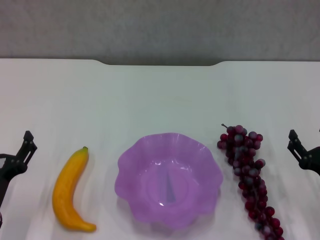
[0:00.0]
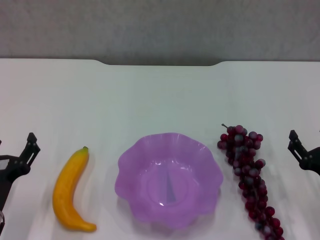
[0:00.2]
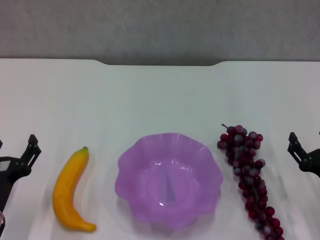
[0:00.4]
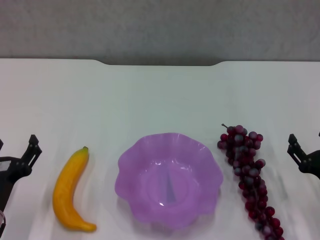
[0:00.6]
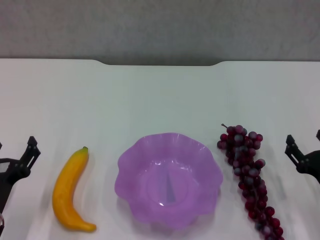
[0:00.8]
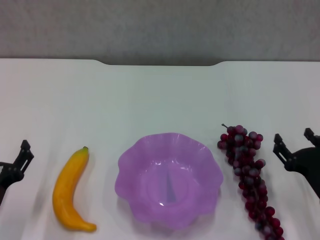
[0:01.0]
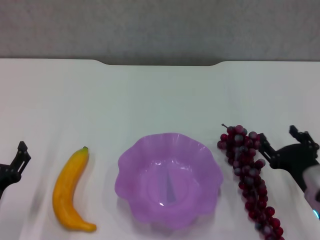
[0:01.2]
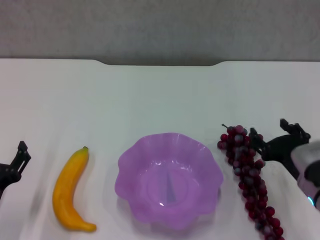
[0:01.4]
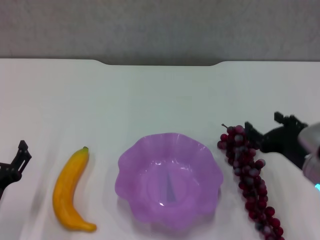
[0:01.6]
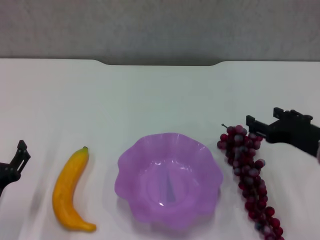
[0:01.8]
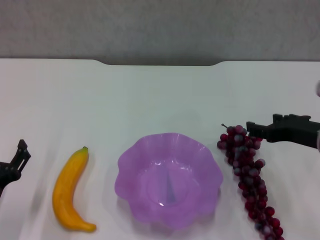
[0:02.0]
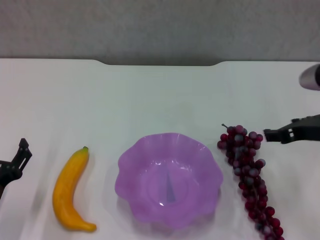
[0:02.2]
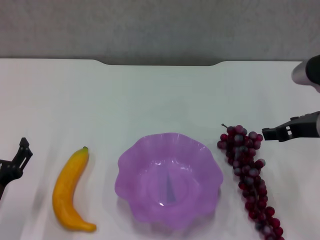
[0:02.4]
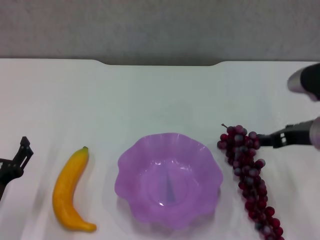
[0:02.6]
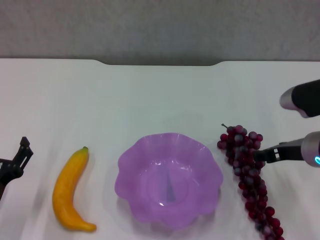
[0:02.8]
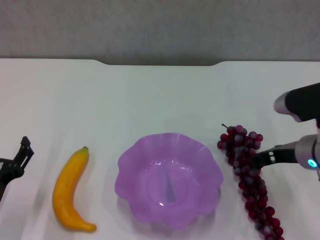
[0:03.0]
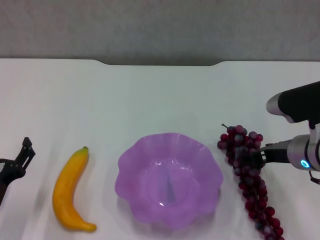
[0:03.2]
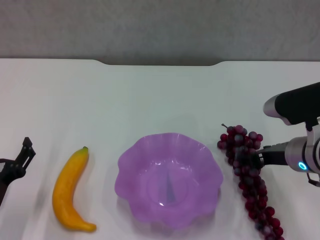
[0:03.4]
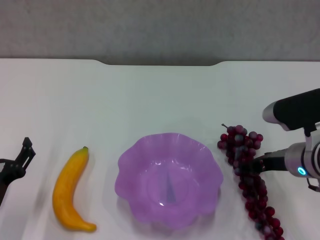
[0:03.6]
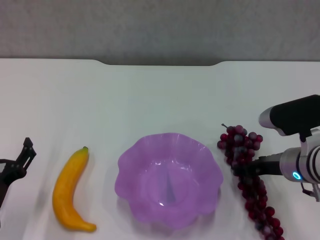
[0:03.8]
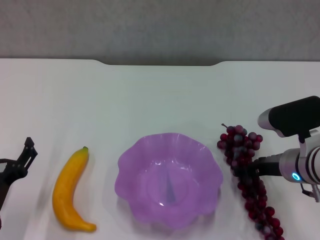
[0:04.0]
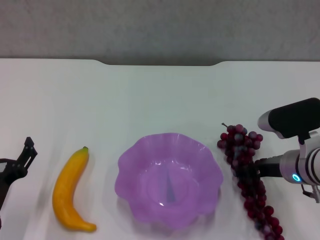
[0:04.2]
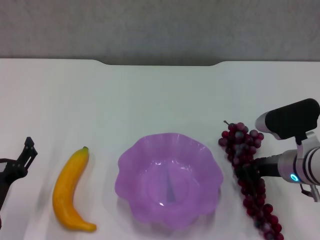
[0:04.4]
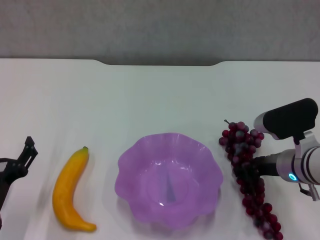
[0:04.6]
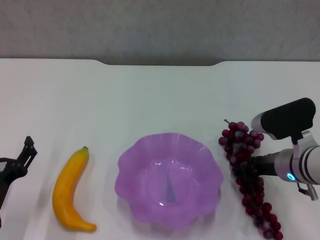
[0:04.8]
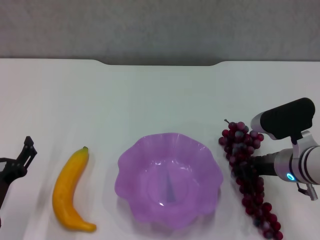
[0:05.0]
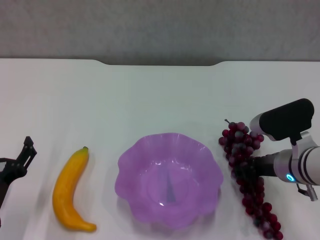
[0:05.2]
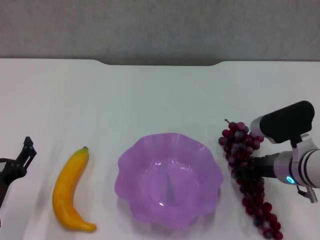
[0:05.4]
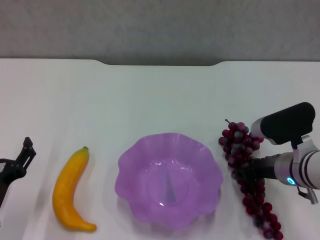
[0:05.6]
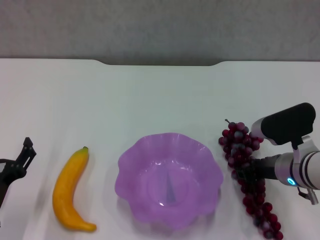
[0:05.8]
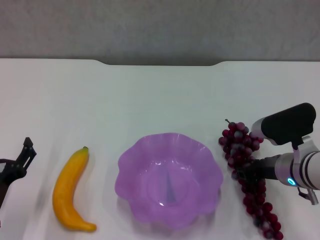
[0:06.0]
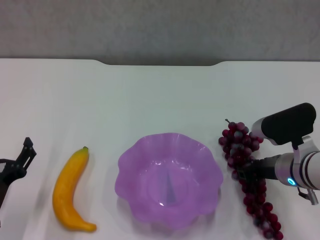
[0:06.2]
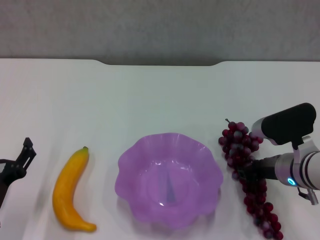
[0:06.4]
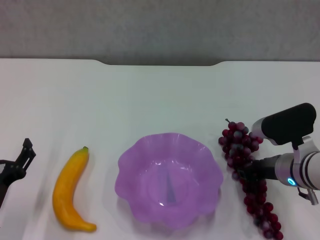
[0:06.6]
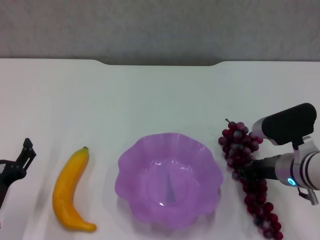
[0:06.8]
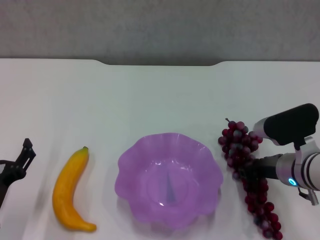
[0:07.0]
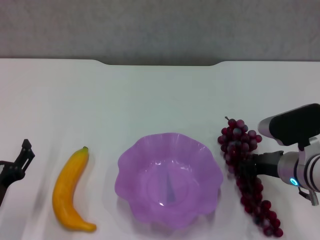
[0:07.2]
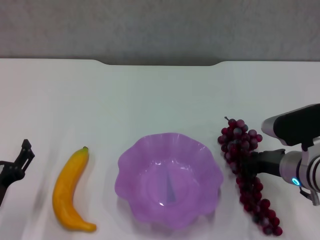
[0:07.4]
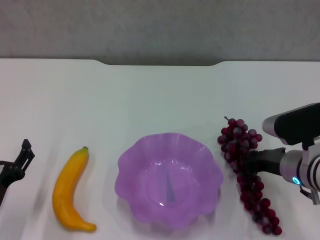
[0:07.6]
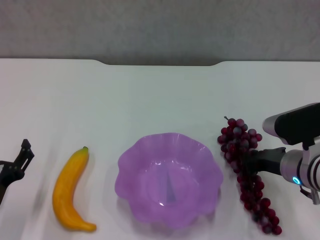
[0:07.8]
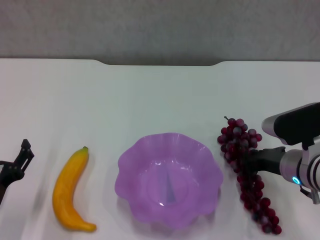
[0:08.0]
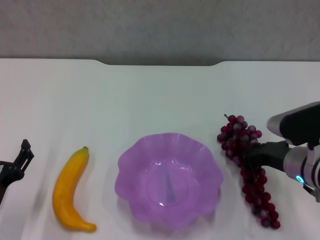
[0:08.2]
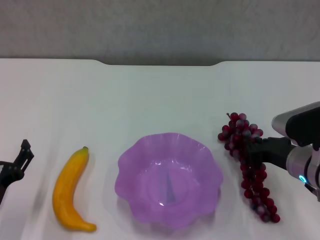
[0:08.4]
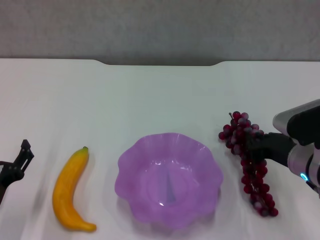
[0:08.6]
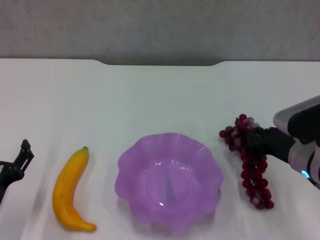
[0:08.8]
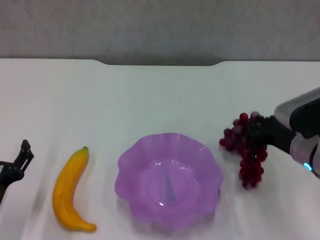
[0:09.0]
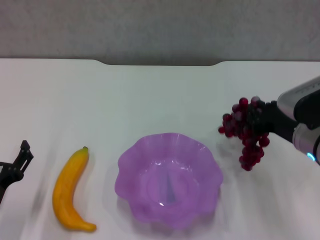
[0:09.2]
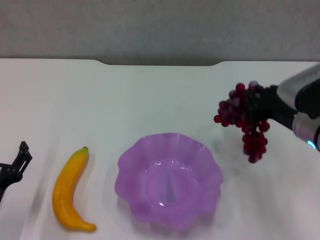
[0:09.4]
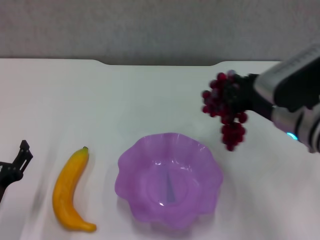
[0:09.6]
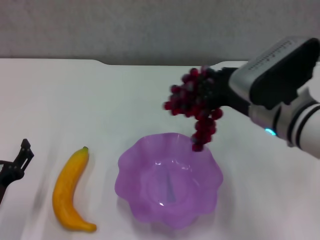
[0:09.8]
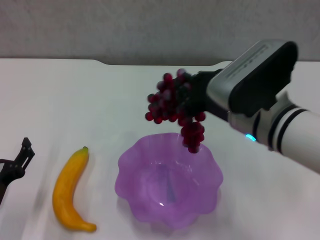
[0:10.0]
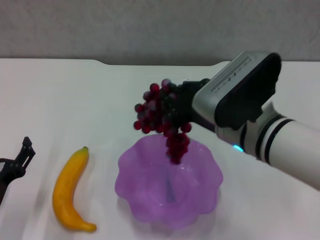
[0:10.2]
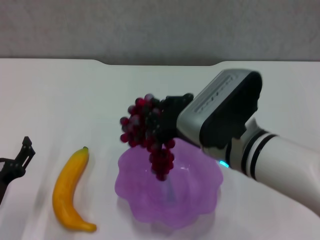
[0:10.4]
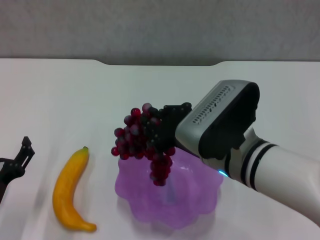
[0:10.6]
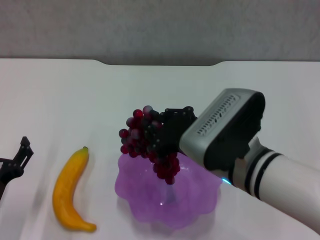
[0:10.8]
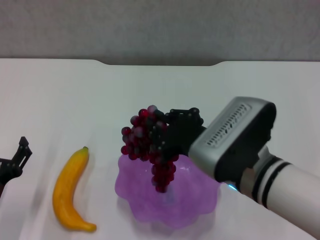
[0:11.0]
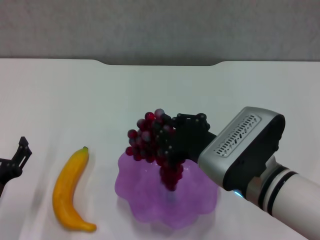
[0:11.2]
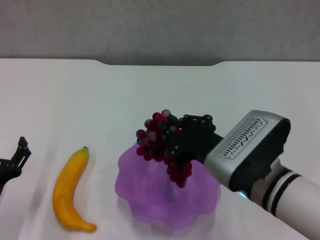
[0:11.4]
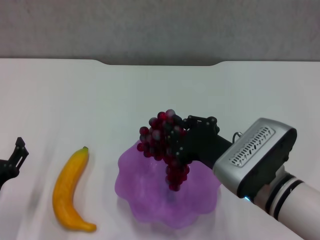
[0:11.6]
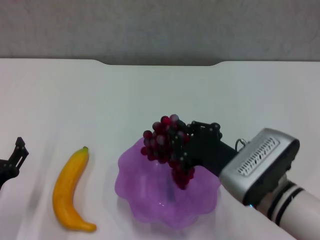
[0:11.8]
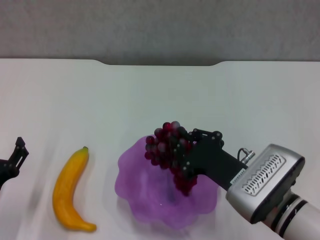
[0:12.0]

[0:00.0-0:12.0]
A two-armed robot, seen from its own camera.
Step, 0:00.0 to 0:05.2: Grasp the grape with right gripper.
0:00.0 to 0:01.6: The right gripper shifts about 10 cm upward and to the left.
0:01.6 to 0:03.0: The right gripper heads forward, covering some 5 cm.
0:03.0 to 0:04.4: The grippers move only a little.
0:04.4 to 0:06.0: Both grippers stay put.
0:06.0 to 0:07.6: The right gripper closes its fingers.
0:07.6 to 0:09.0: The grippers make only small movements.
0:09.0 to 0:10.4: The right gripper is displaced to the left by roughly 15 cm.
0:10.4 to 0:12.0: The right gripper travels downward and to the right by about 10 cm.

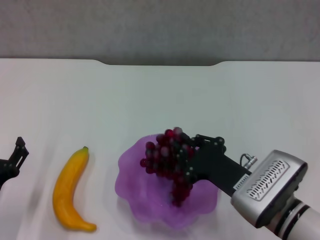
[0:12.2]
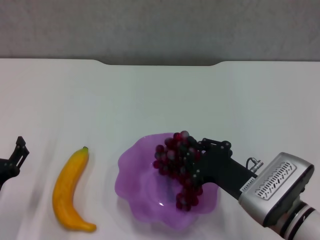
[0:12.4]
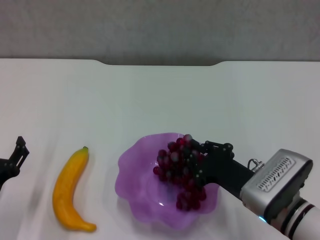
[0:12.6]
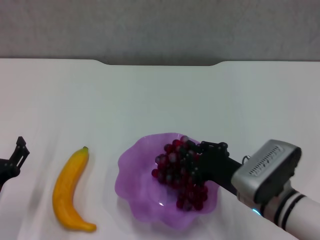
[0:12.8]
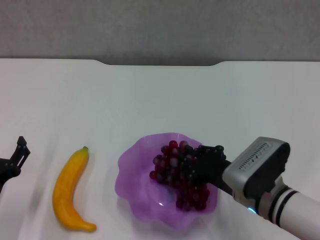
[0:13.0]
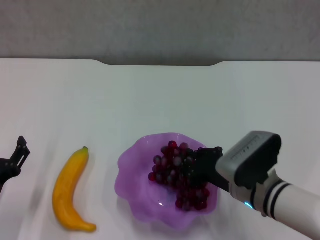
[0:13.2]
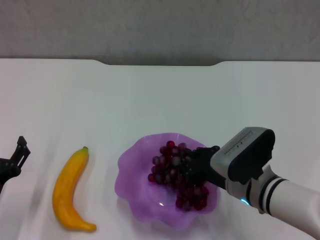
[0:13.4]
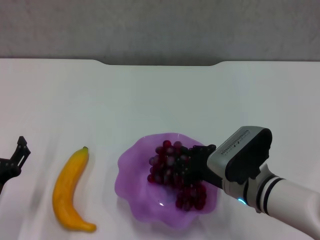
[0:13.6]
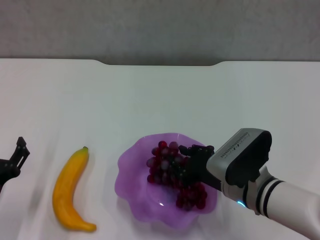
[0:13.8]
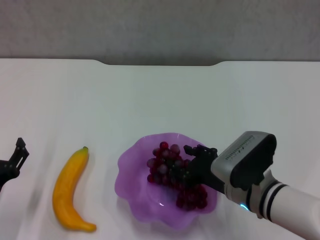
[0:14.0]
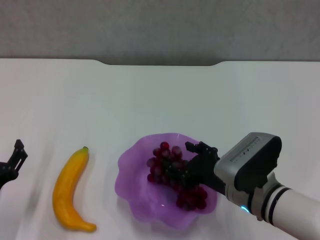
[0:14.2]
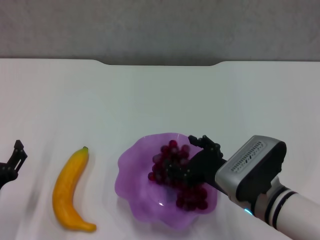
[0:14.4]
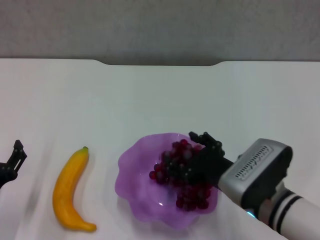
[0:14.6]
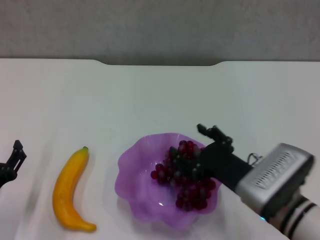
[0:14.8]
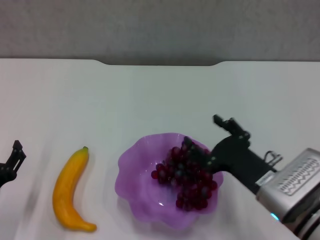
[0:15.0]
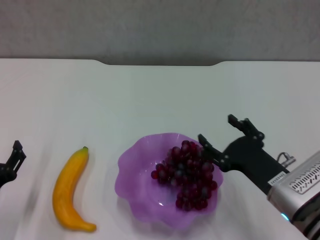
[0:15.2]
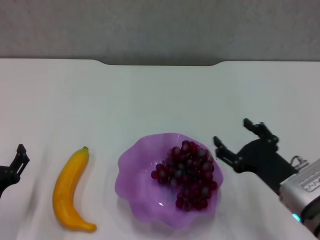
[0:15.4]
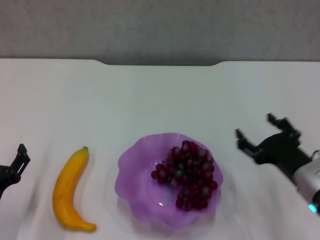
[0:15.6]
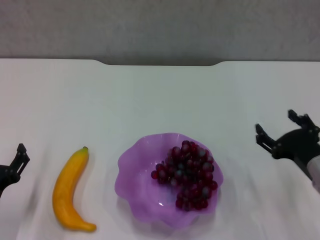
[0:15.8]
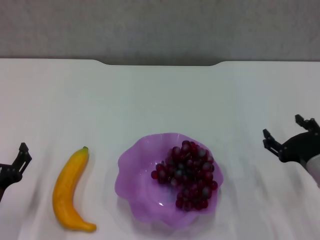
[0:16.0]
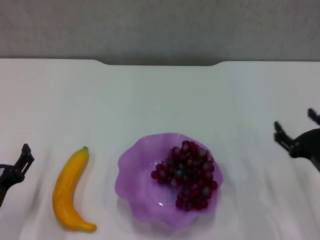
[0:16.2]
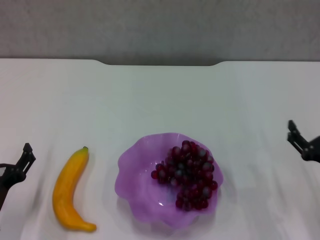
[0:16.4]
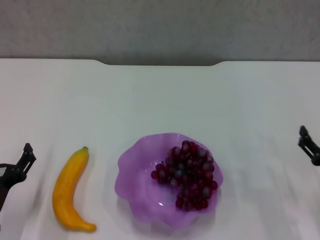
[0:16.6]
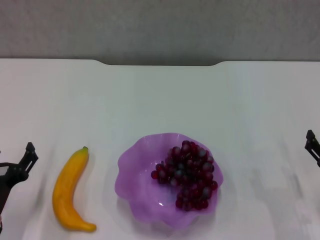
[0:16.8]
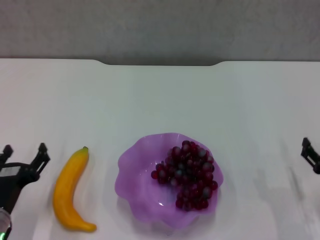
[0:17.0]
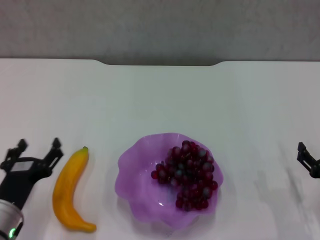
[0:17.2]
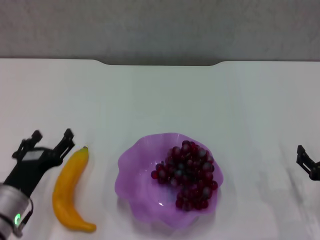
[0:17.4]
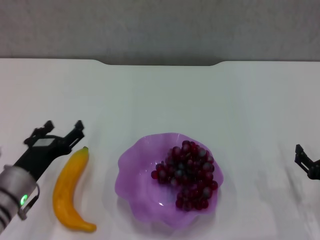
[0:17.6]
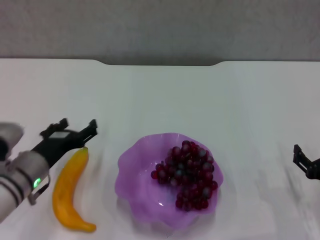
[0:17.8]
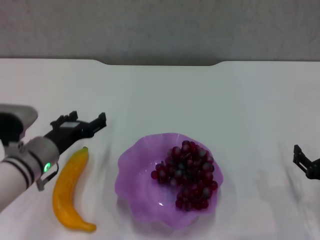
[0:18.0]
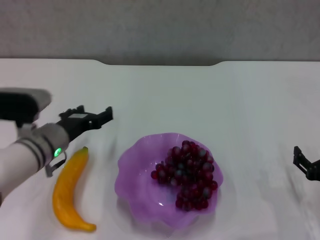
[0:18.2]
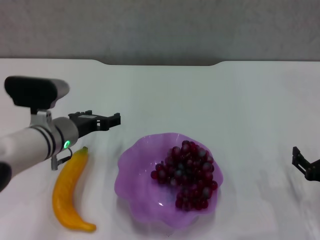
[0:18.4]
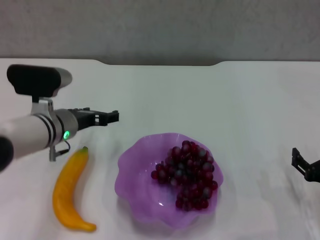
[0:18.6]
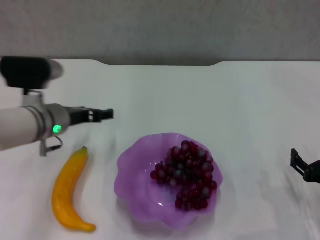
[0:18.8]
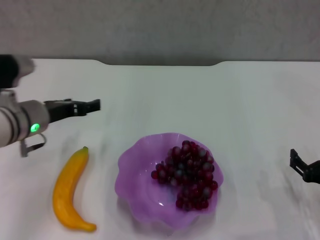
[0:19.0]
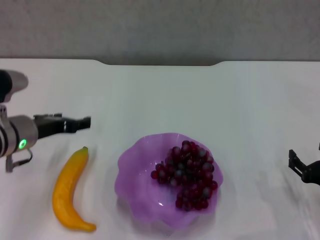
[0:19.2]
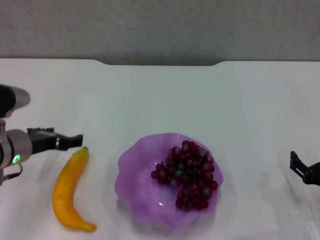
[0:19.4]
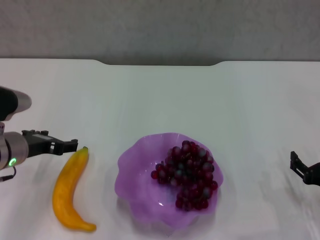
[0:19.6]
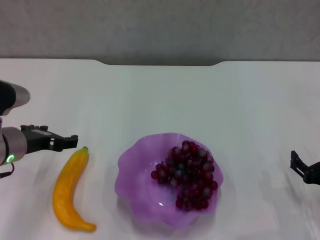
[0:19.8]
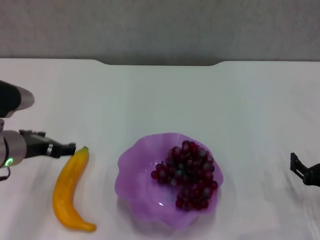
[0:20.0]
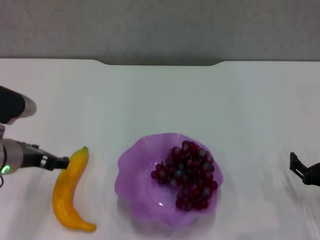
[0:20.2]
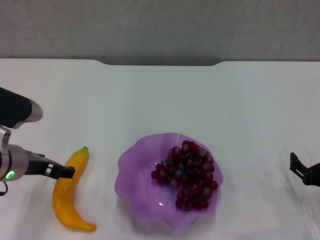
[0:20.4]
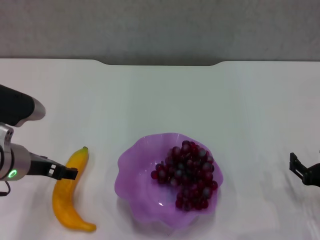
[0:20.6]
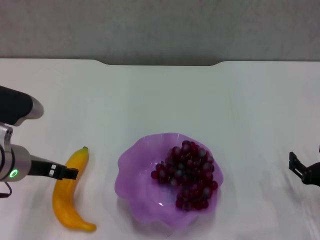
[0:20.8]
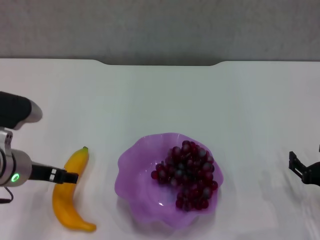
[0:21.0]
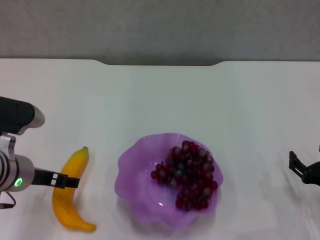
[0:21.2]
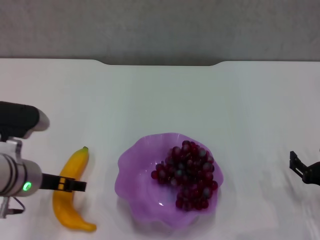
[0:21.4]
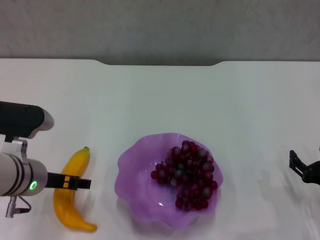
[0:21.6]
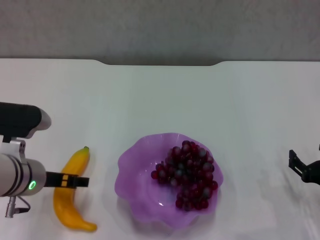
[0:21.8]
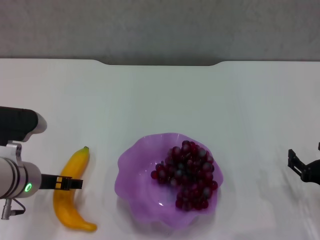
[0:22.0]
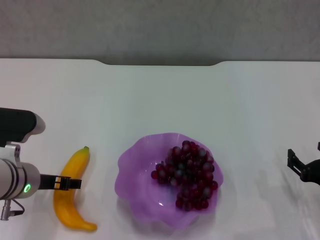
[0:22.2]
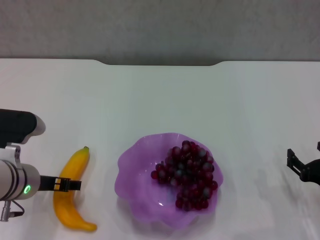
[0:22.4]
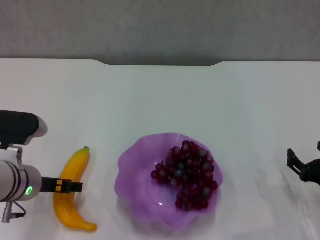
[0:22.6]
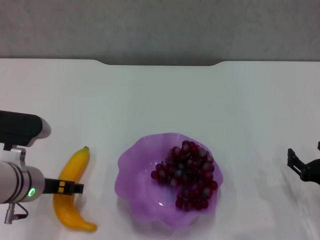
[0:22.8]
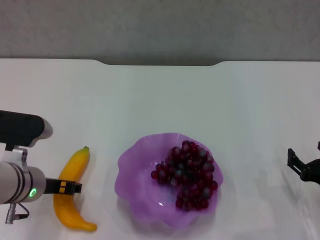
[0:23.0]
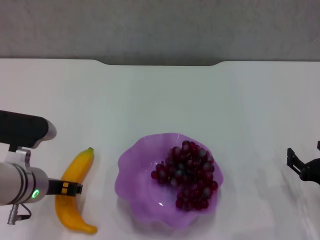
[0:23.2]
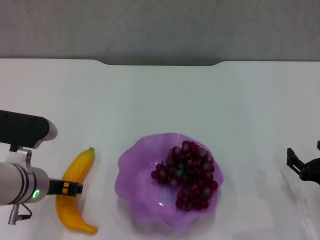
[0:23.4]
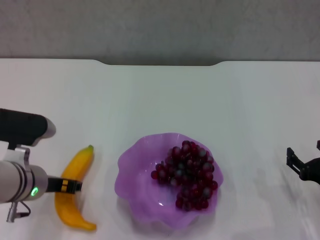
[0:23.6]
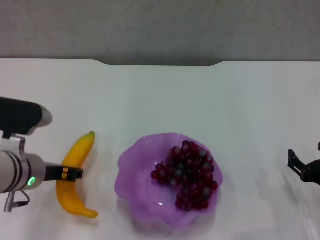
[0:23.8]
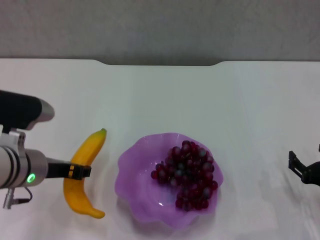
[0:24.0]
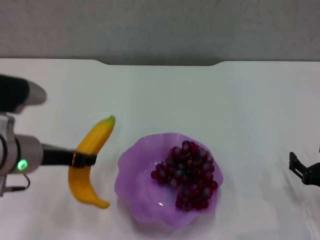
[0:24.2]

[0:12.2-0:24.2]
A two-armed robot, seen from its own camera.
Step, 0:12.2 to 0:15.2: Place the grape in the purple plate with right gripper.
Step, 0:15.4 to 0:23.2: Grasp the banana with left gripper.
0:13.8 to 0:15.2: The right gripper heads to the right, covering roughly 5 cm, and opens.
0:15.2 to 0:16.6: The right gripper shifts some 10 cm to the right.
0:16.6 to 0:18.2: The left gripper heads forward, to the right and upward, covering approximately 15 cm.
0:18.2 to 0:19.8: The left gripper shifts by roughly 5 cm.
0:19.8 to 0:21.2: The grippers stay close to where they were, moving slightly.
0:21.2 to 0:22.6: There are only small adjustments of the grippers.
0:22.6 to 0:24.2: The left gripper heads upward, covering roughly 5 cm, and closes its fingers.
